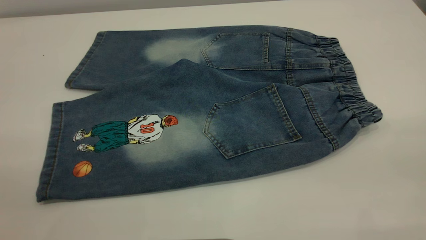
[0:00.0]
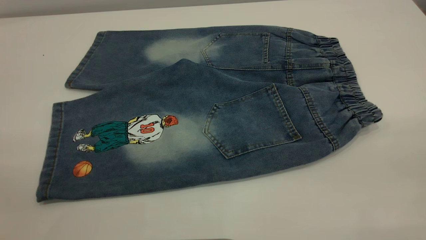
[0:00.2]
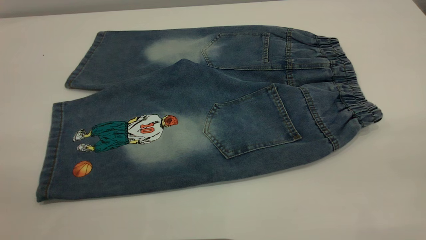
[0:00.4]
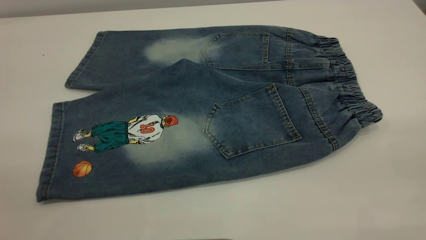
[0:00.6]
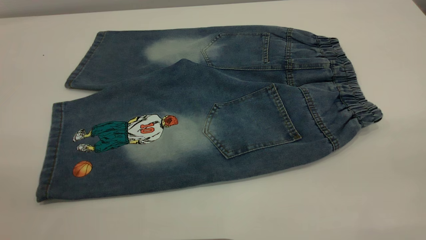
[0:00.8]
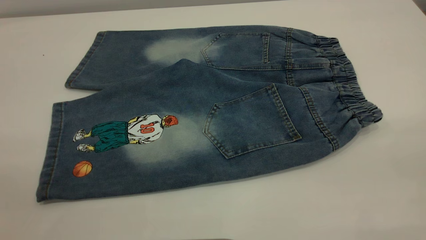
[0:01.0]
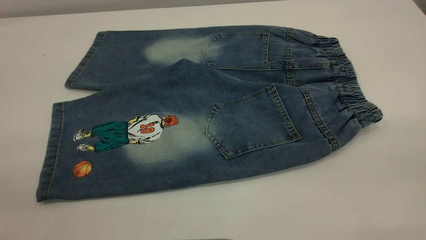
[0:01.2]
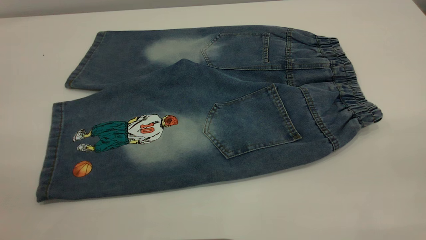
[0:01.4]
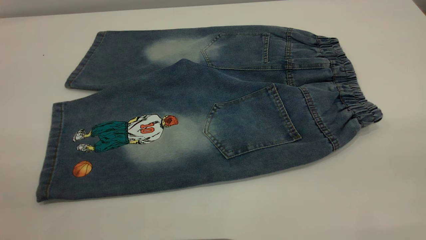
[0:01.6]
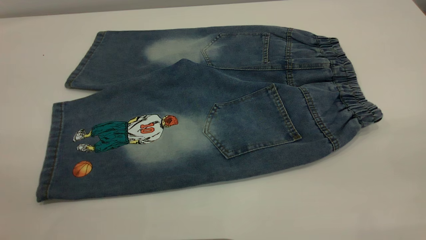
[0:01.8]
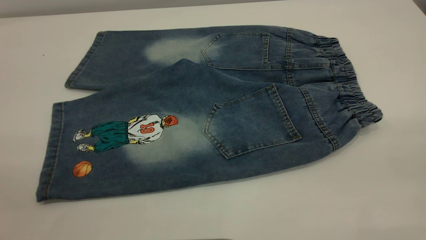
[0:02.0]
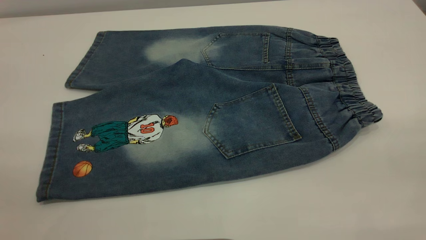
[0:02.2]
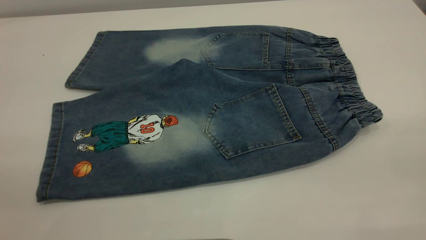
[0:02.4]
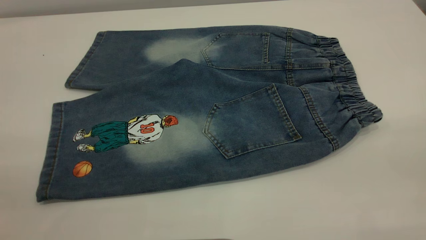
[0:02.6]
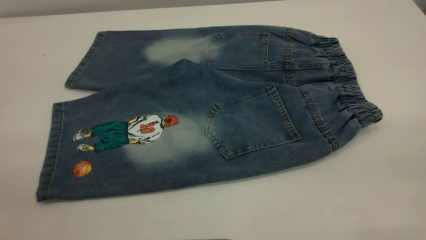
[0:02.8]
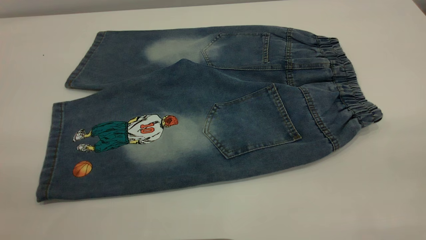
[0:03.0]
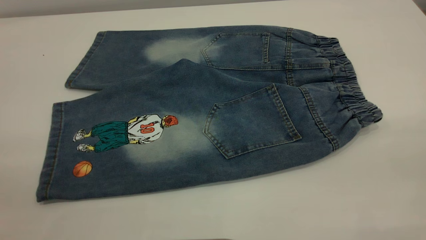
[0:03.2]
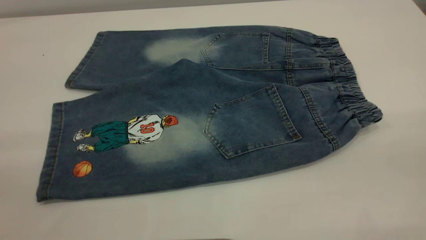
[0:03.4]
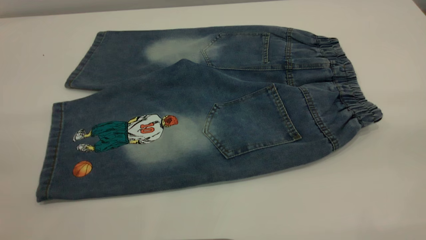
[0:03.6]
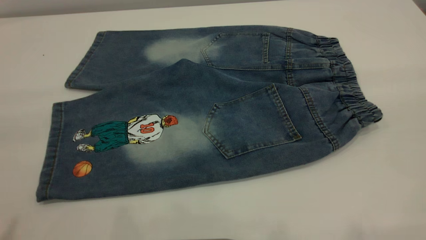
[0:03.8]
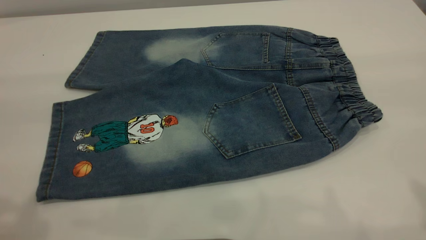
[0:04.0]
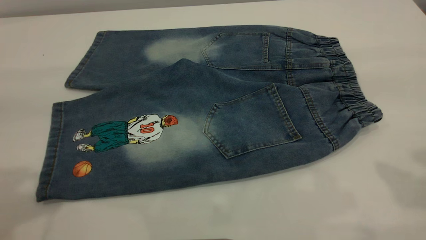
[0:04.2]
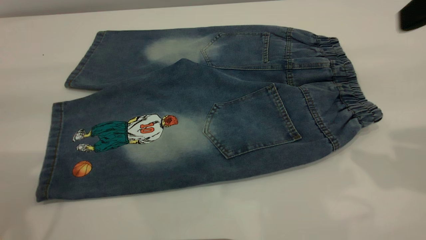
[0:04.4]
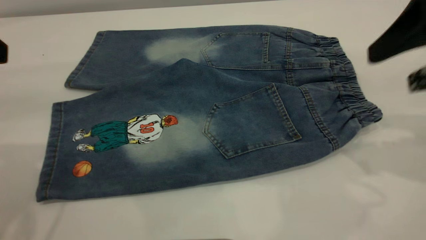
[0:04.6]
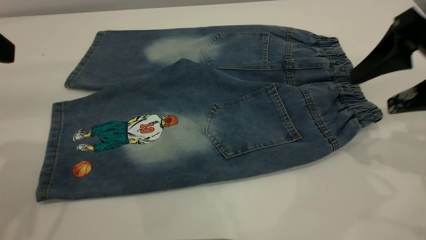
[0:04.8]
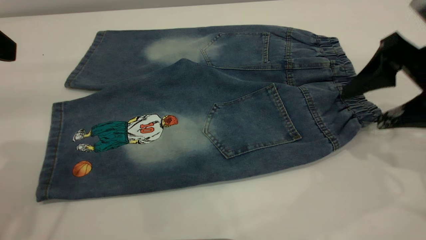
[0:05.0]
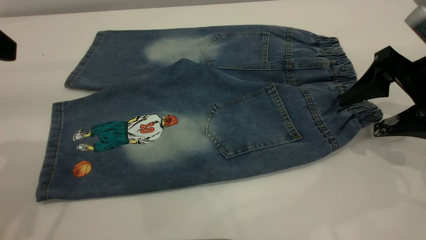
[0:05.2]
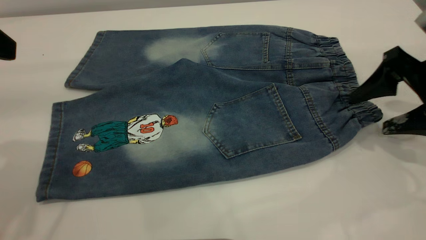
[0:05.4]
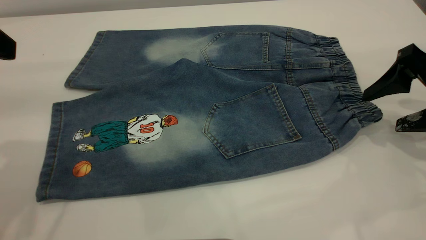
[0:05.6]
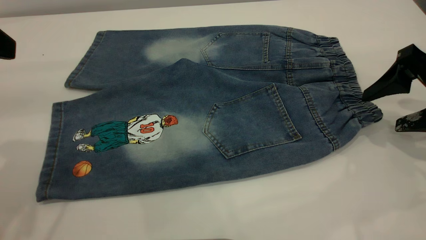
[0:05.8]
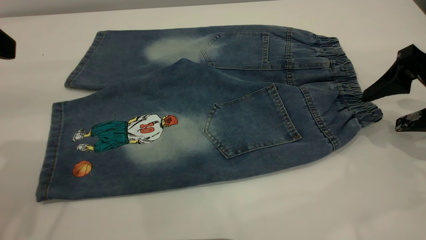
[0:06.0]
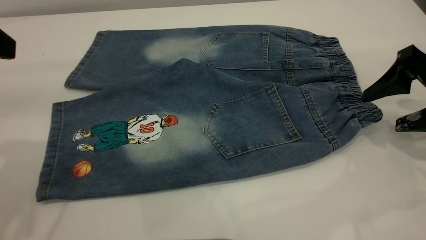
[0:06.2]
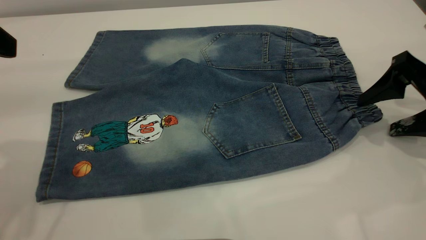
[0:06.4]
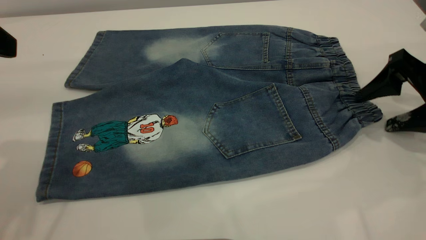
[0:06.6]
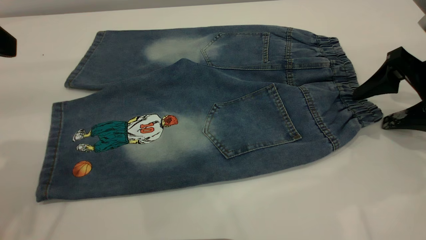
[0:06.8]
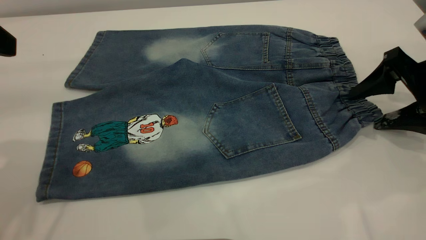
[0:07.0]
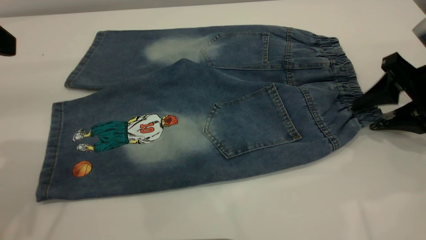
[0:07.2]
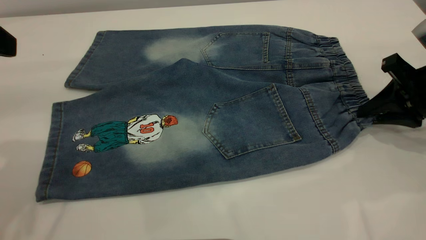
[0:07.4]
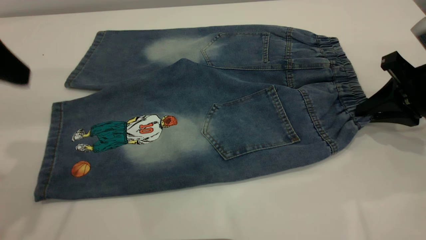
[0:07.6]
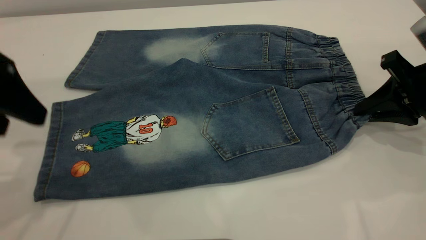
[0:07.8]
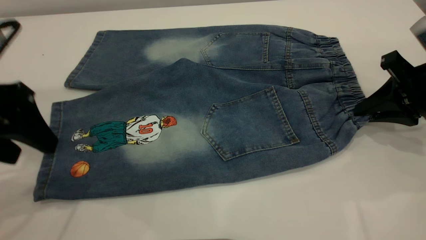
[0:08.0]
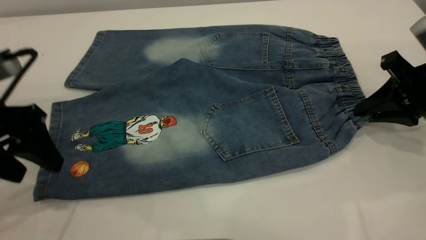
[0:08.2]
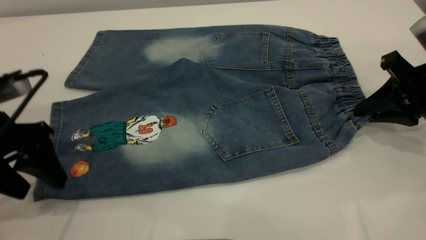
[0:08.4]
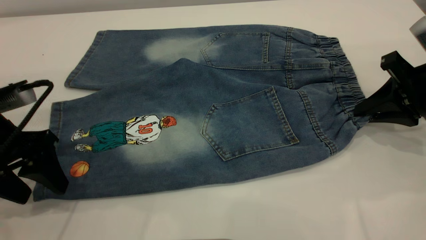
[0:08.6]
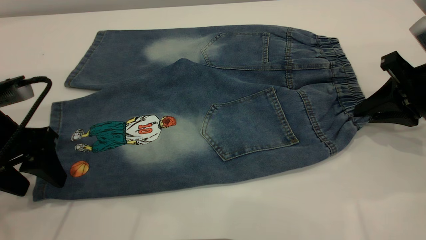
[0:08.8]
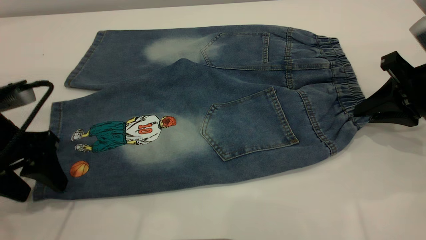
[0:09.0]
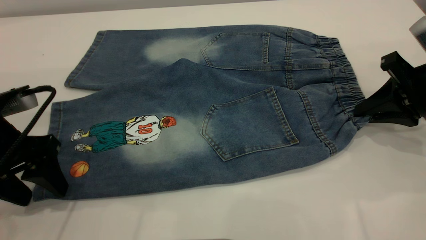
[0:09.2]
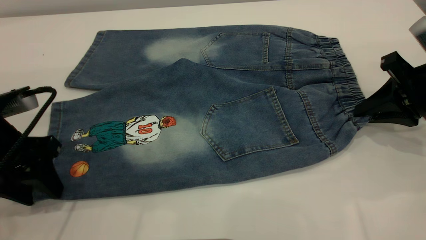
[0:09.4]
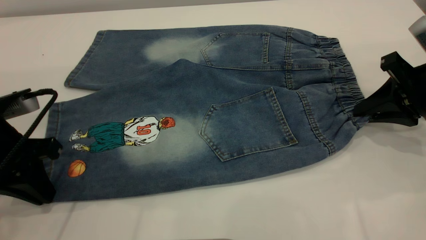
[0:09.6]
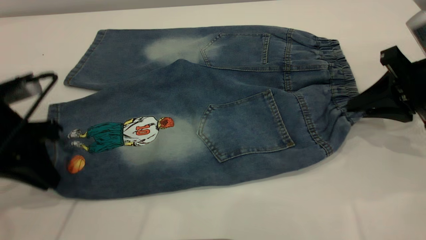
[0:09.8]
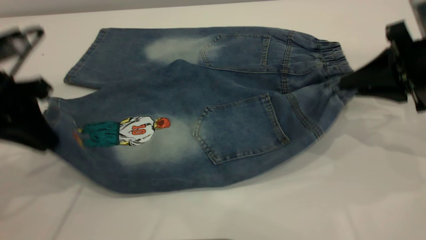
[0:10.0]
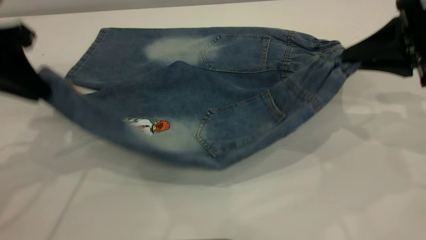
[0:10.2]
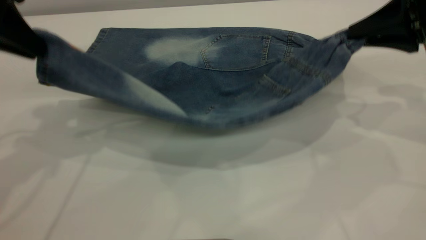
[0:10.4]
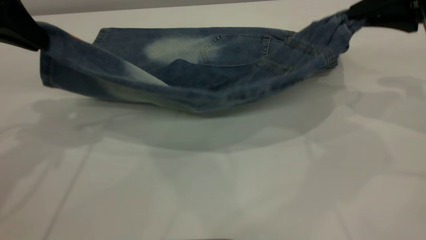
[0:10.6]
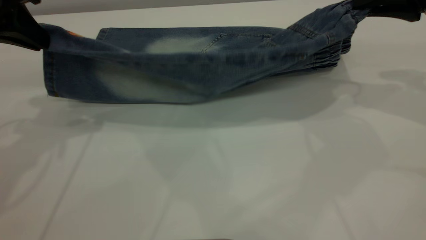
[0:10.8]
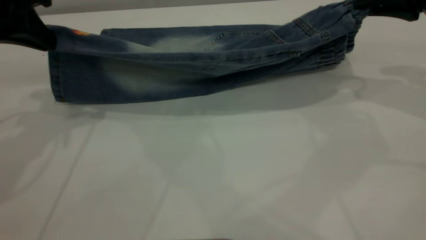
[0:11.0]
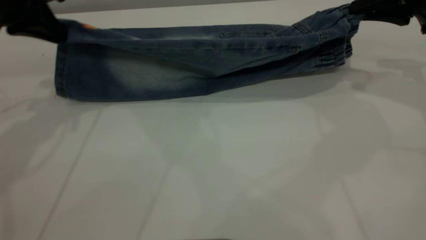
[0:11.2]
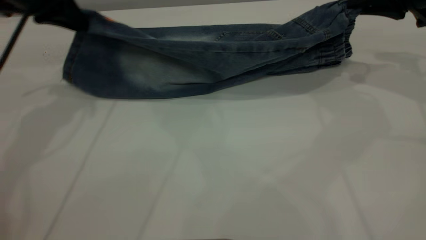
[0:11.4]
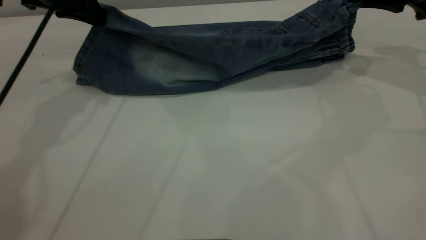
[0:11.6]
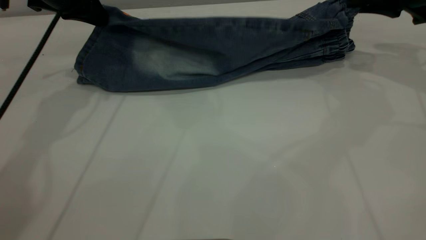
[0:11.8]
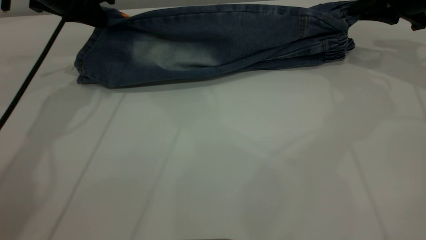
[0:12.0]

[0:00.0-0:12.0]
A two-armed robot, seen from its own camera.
0:00.0 to 0:03.0: Both grippers stay put.
0:03.0 to 0:04.4: The right gripper travels forward by some 25 cm.
0:04.4 to 0:06.0: The right gripper shifts approximately 15 cm downward.
0:06.0 to 0:07.6: The right gripper closes up.
0:07.6 to 0:09.0: The left gripper shifts about 15 cm downward.
0:09.0 to 0:10.4: The left gripper is displaced upward and forward by approximately 15 cm, and closes up; the right gripper shifts about 10 cm upward.
0:10.4 to 0:12.0: The left gripper goes approximately 15 cm forward and downward. The right gripper moves forward, roughly 10 cm.

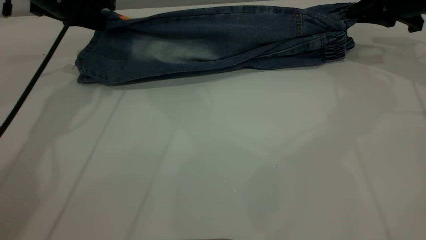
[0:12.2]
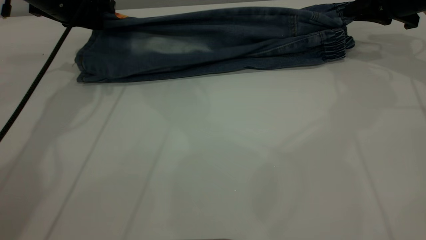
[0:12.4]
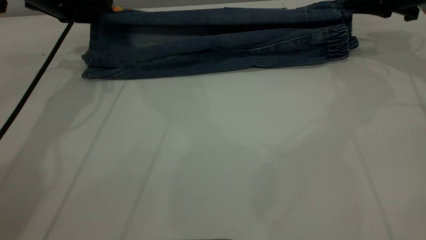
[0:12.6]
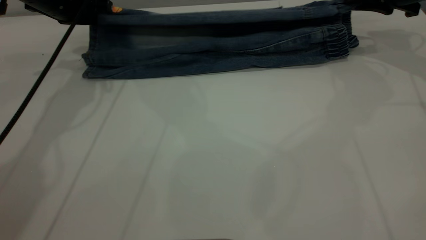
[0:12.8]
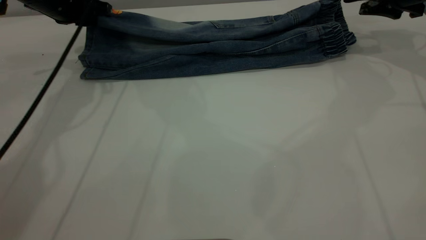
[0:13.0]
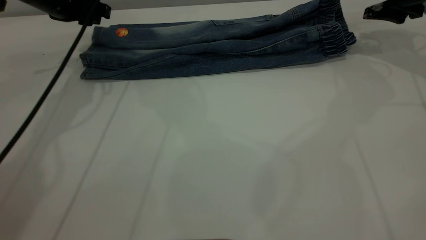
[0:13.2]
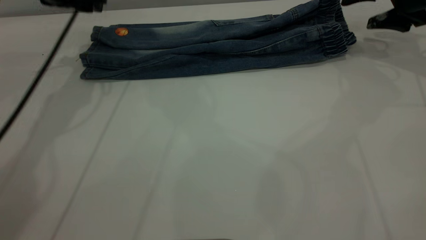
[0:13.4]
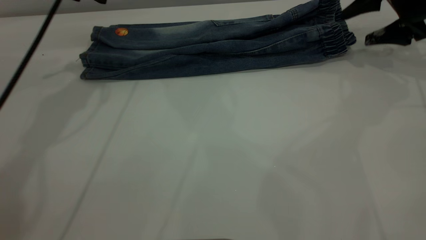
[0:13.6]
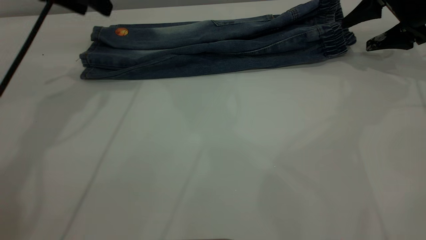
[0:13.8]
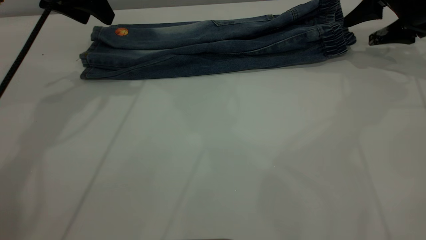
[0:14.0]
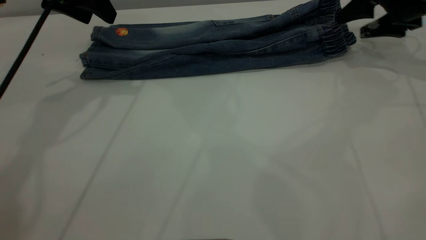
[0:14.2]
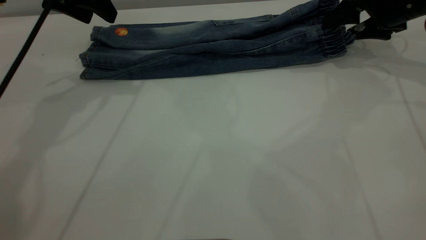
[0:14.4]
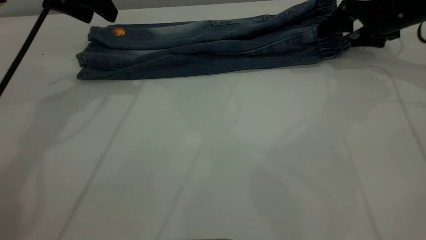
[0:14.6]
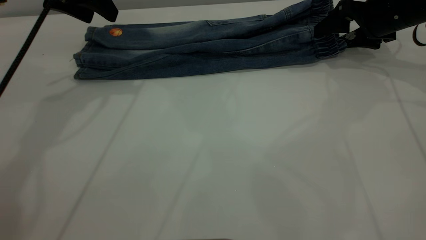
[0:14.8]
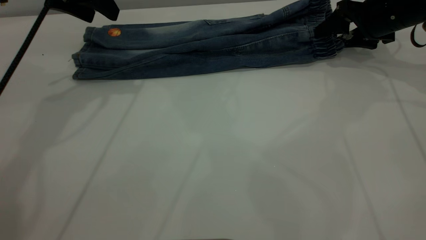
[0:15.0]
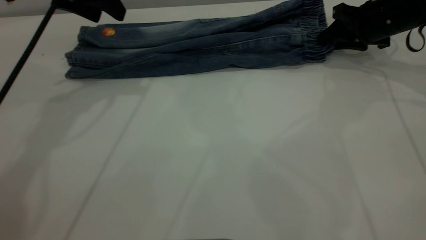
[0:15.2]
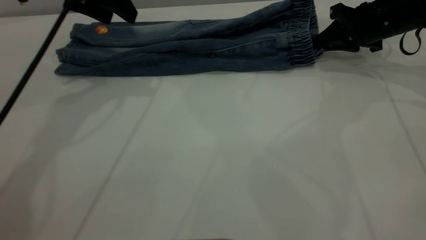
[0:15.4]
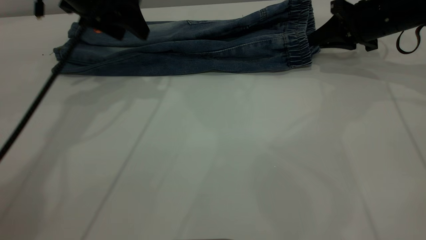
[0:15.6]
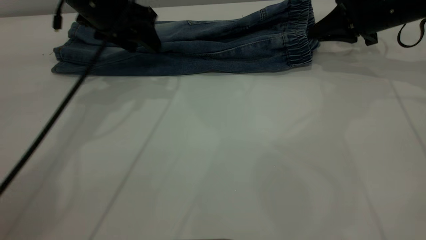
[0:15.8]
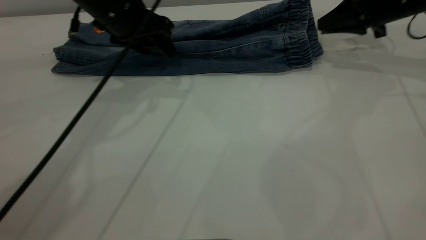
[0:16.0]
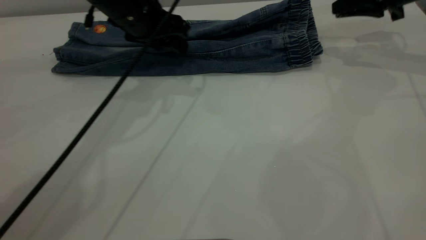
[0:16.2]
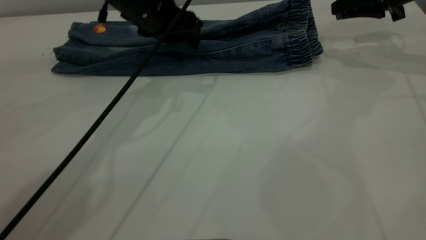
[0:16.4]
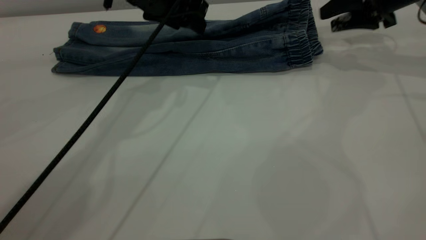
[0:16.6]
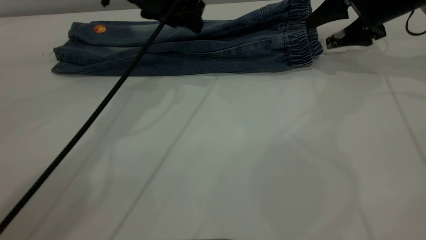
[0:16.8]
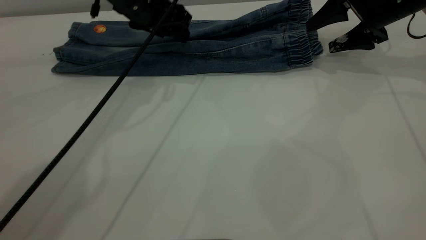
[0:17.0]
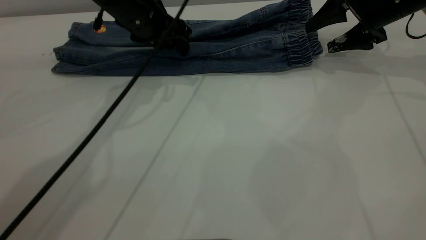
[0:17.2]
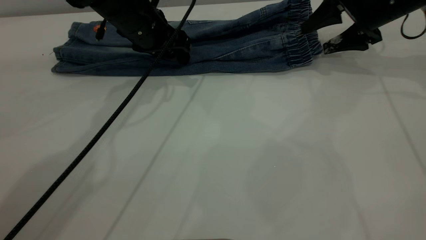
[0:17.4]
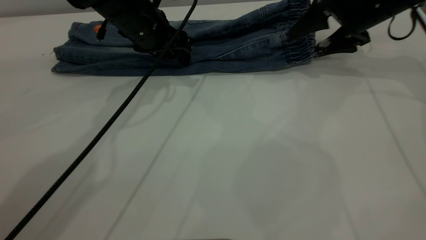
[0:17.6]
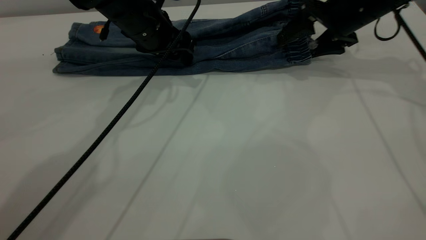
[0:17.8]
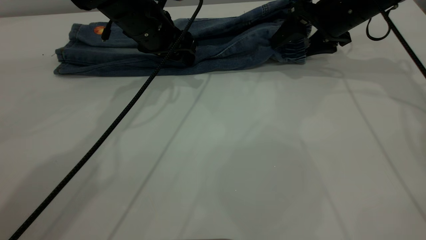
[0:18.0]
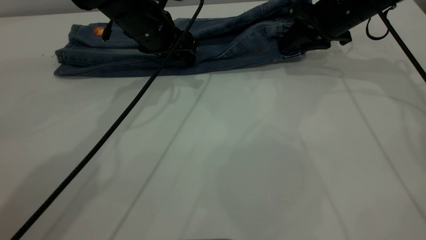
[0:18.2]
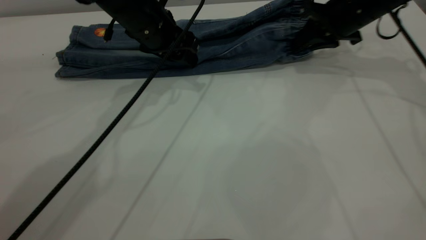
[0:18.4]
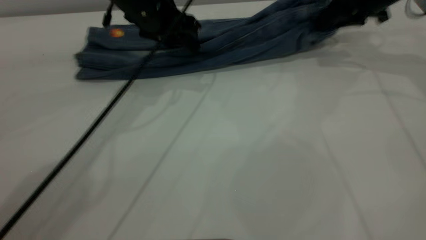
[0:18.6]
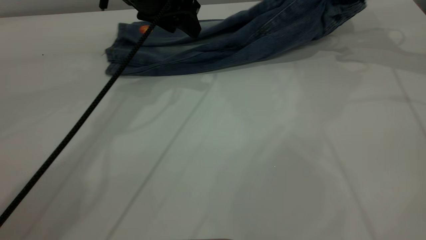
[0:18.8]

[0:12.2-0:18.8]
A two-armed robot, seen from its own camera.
0:12.2 to 0:13.8: The right gripper opens its fingers; the left gripper goes roughly 5 cm upward, and opens its fingers.
0:13.8 to 0:15.4: The right gripper goes about 5 cm to the left, and closes up.
0:15.4 to 0:17.2: The right gripper opens. The left gripper heads downward and to the right, covering roughly 10 cm.
0:17.2 to 0:18.8: The grippers both shift upward by roughly 5 cm. The right gripper moves about 5 cm to the left and comes back, and closes its fingers.
